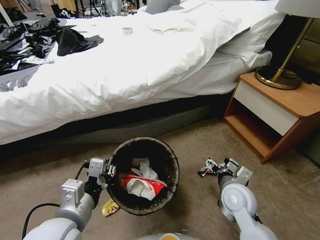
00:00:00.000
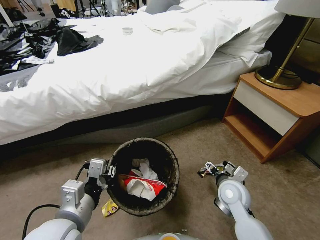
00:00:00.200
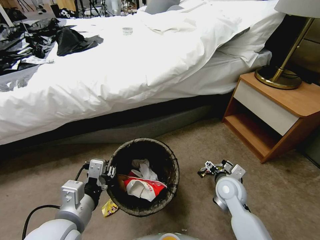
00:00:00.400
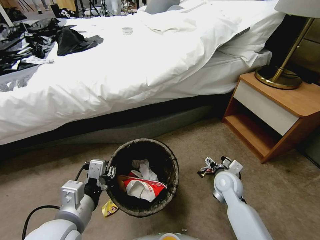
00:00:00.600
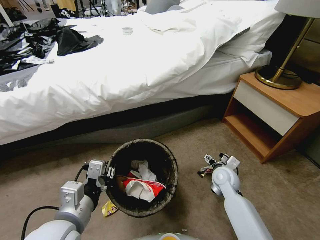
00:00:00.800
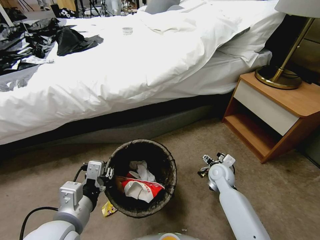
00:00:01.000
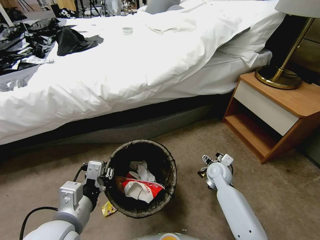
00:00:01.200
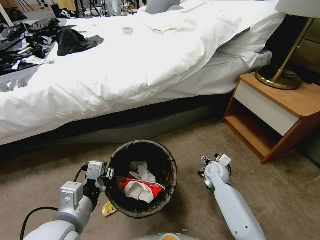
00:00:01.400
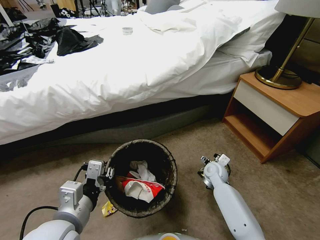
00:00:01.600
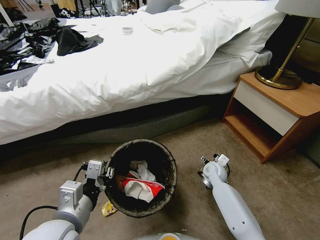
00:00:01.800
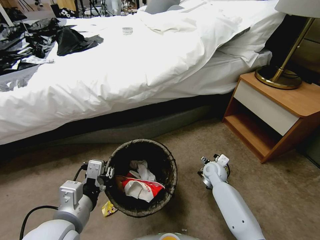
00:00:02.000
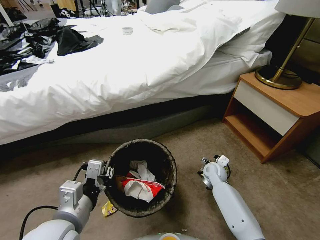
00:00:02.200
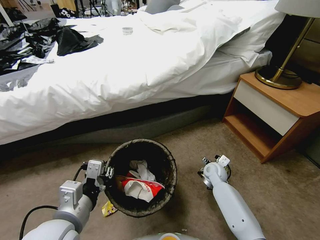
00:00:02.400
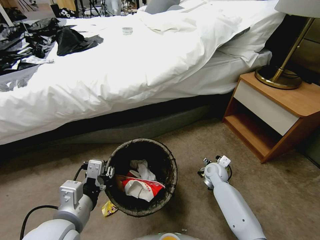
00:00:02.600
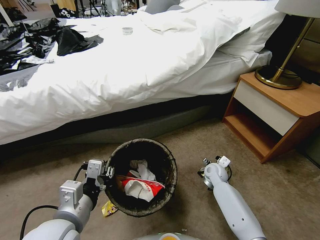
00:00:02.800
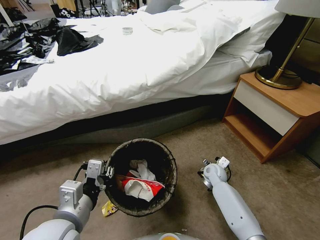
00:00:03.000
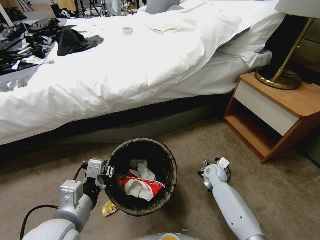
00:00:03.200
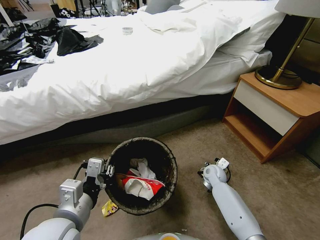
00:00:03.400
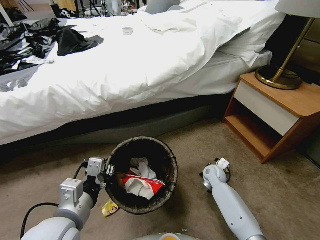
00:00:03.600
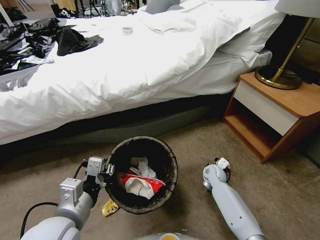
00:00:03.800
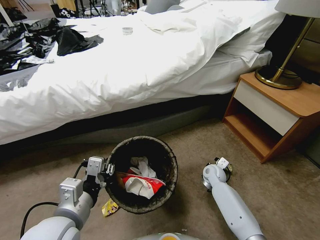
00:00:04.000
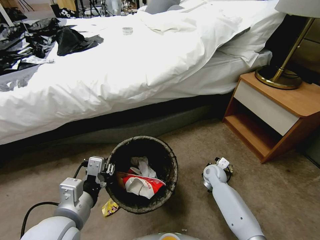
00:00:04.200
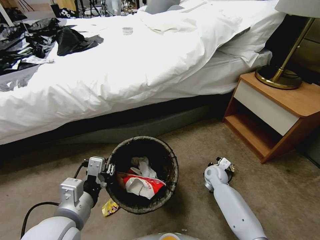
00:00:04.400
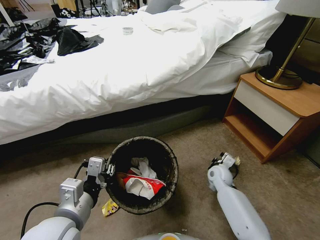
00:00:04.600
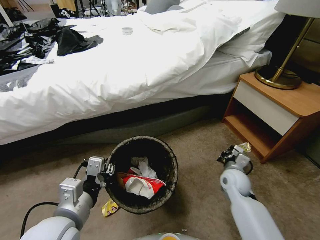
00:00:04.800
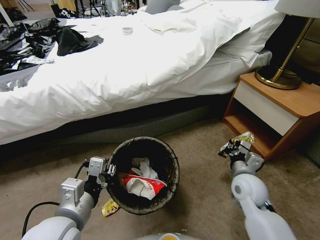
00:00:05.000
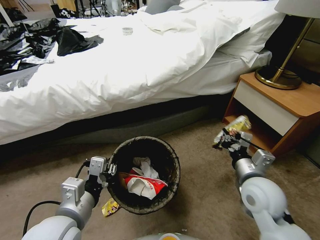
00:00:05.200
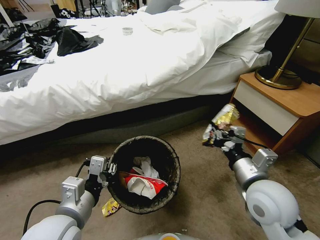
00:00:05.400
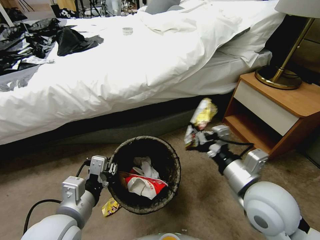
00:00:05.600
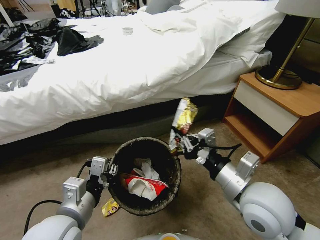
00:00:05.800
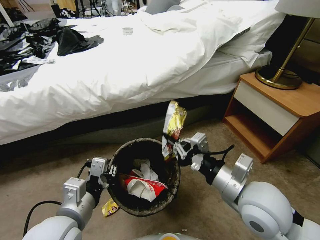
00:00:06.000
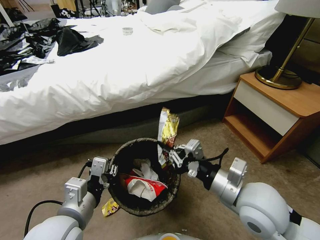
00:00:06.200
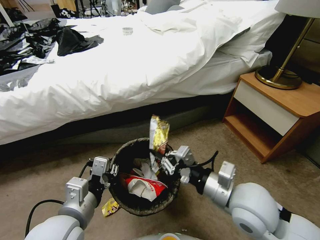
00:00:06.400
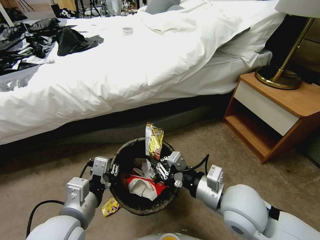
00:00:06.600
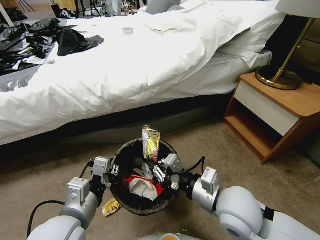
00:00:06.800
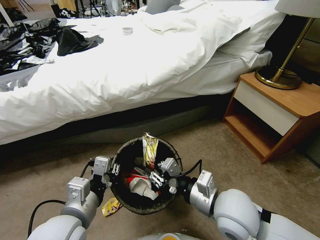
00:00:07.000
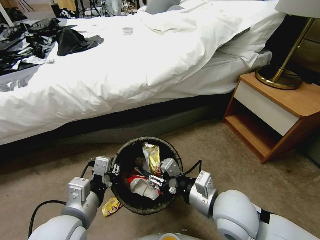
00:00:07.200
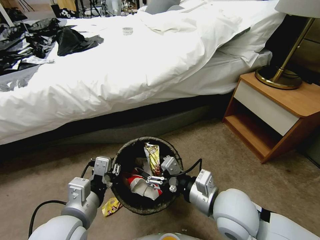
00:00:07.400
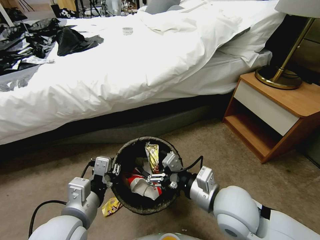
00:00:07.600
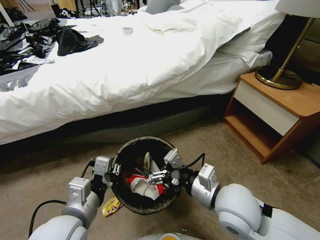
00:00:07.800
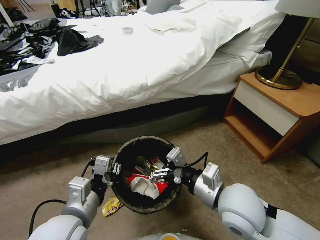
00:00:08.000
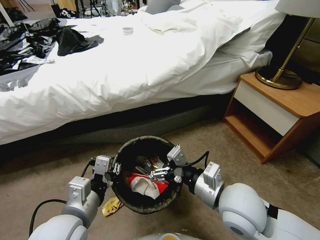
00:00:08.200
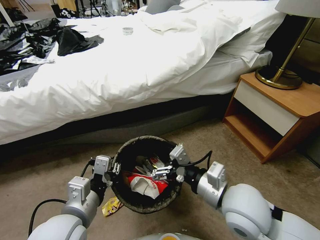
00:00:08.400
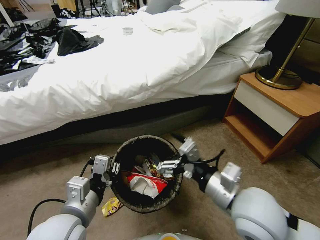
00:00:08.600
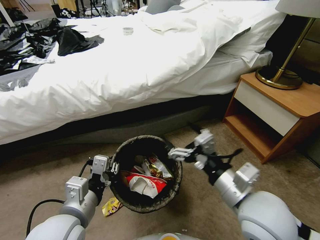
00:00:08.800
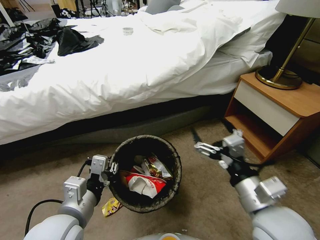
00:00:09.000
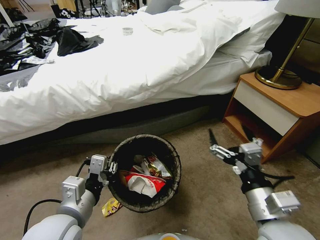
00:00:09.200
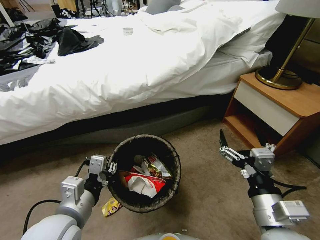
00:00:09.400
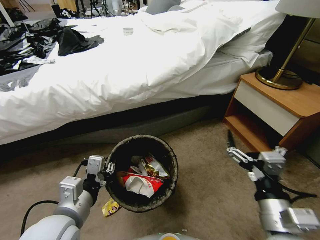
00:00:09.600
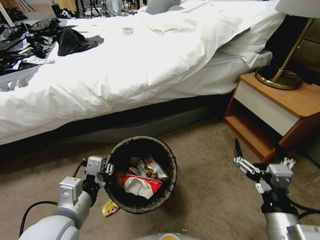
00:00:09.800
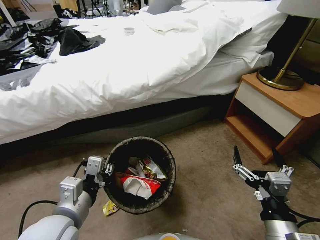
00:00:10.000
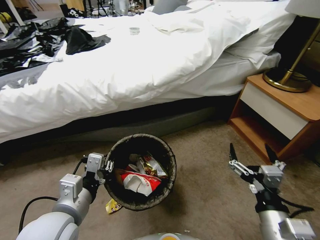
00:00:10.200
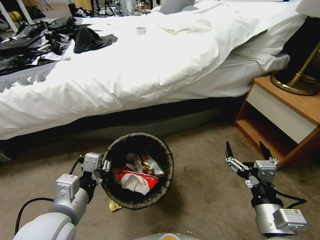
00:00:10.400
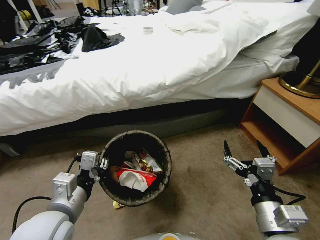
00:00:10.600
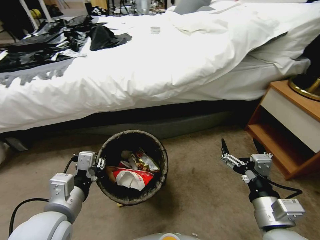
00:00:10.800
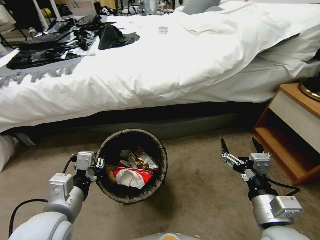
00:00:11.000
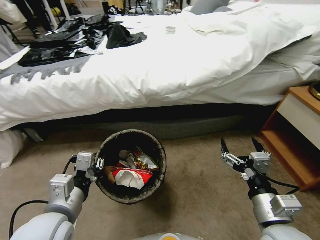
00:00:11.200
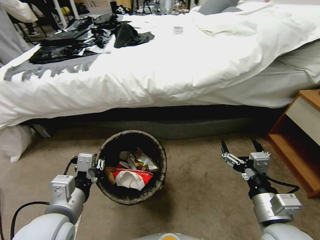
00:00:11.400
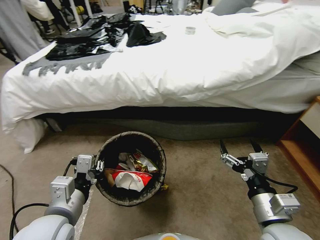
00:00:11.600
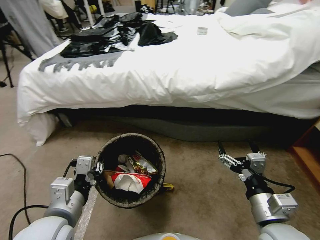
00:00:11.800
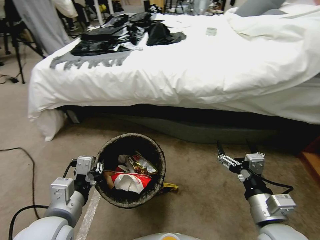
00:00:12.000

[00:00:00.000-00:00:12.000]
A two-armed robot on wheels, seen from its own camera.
Task of the whole recording: Pick up the trash bin, then pick up the garbage from the floor and place it into the trash bin.
00:00:00.000 to 00:00:01.600: The right gripper moves forward and downward, approximately 15 cm.
00:00:01.600 to 00:00:03.000: The grippers make only small movements.
00:00:03.000 to 00:00:04.400: The right gripper closes up.
00:00:04.400 to 00:00:06.000: The right gripper heads upward and backward, covering about 35 cm.
00:00:06.000 to 00:00:07.600: The right gripper changes place by some 5 cm, and opens.
00:00:07.600 to 00:00:09.000: The right gripper heads to the right, covering about 5 cm.
00:00:09.000 to 00:00:10.400: The right gripper shifts roughly 10 cm downward and backward.

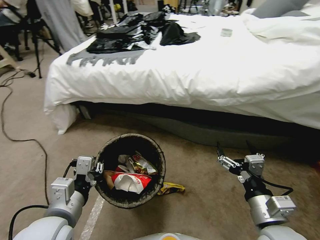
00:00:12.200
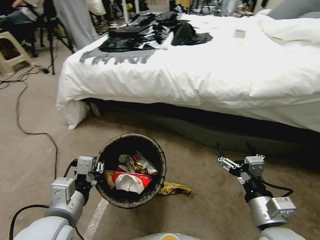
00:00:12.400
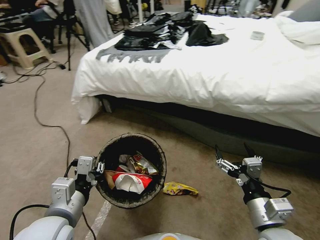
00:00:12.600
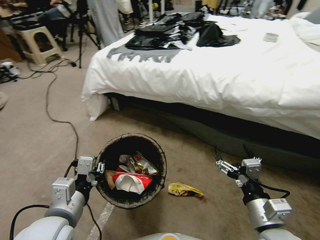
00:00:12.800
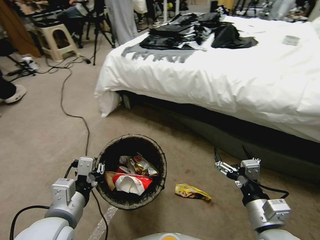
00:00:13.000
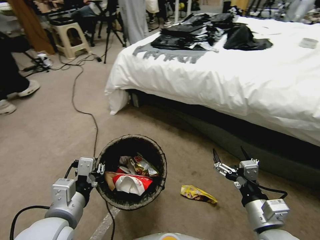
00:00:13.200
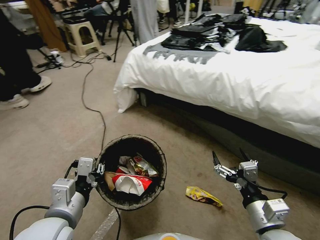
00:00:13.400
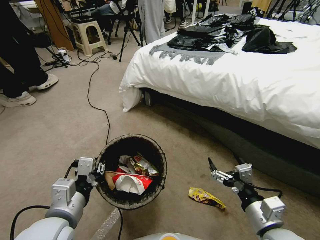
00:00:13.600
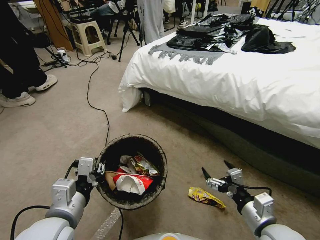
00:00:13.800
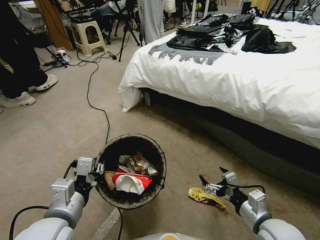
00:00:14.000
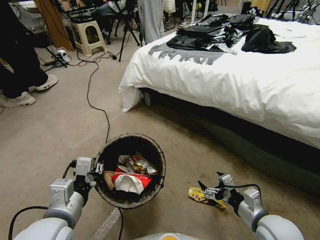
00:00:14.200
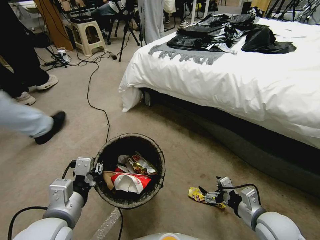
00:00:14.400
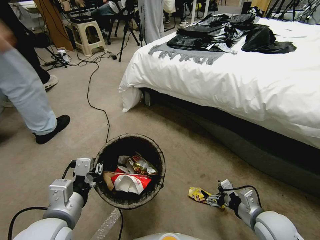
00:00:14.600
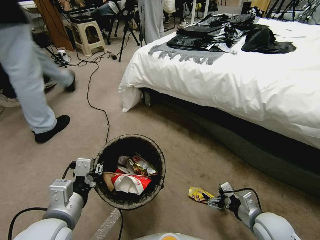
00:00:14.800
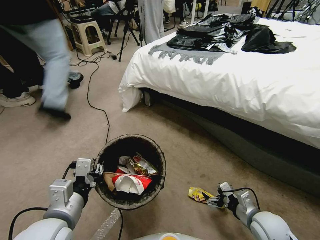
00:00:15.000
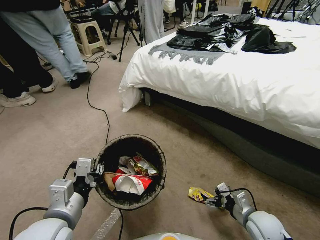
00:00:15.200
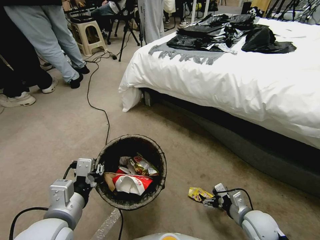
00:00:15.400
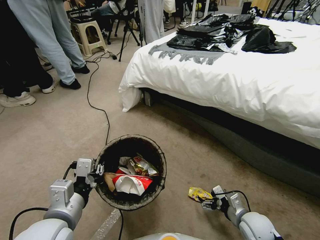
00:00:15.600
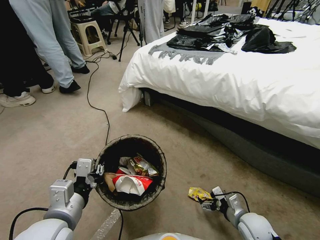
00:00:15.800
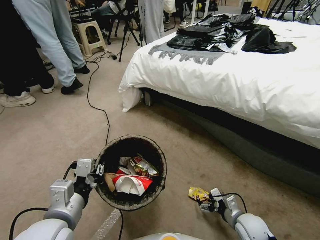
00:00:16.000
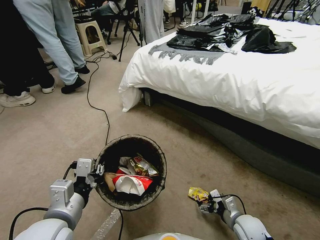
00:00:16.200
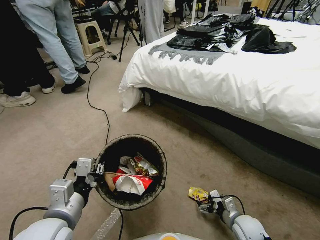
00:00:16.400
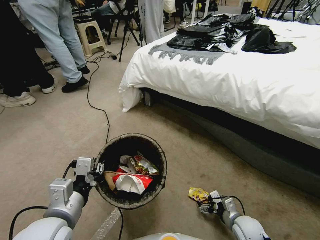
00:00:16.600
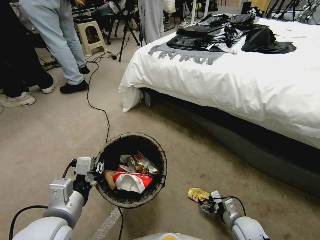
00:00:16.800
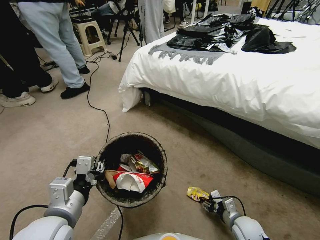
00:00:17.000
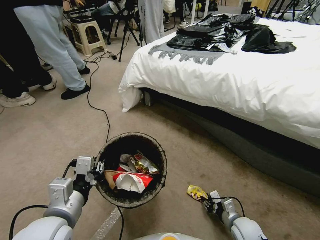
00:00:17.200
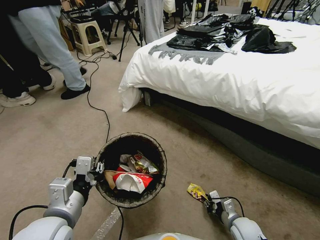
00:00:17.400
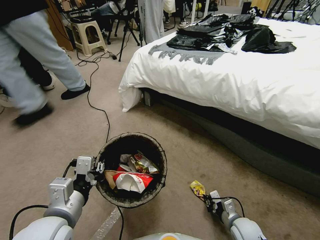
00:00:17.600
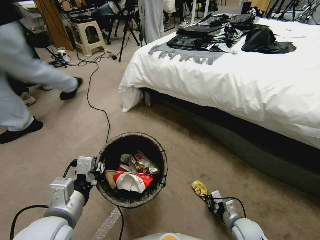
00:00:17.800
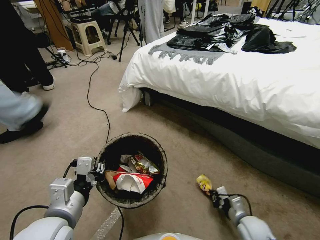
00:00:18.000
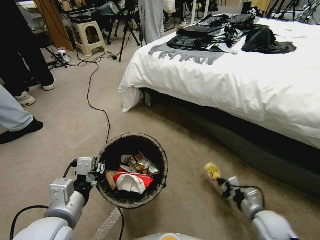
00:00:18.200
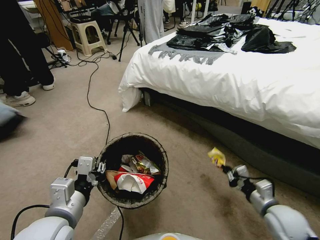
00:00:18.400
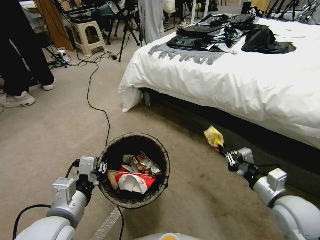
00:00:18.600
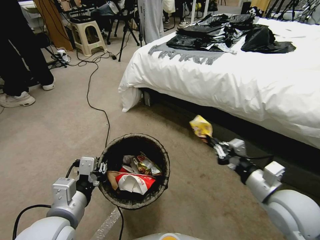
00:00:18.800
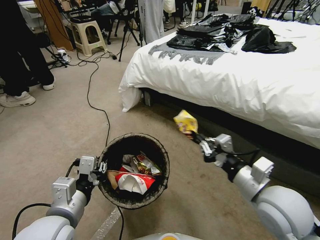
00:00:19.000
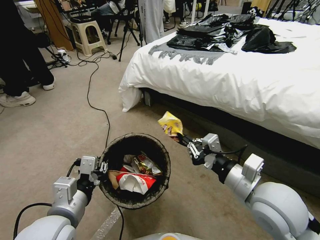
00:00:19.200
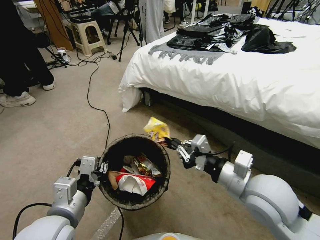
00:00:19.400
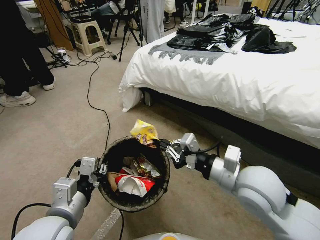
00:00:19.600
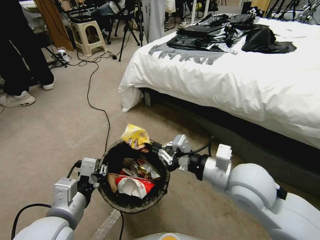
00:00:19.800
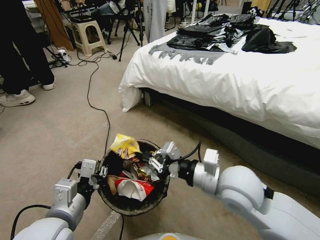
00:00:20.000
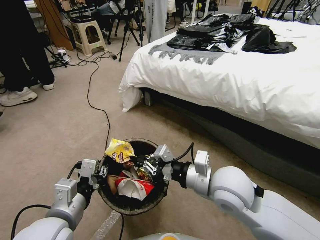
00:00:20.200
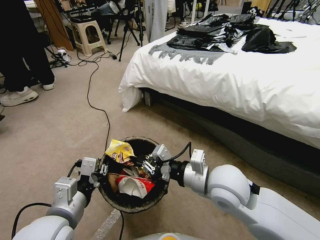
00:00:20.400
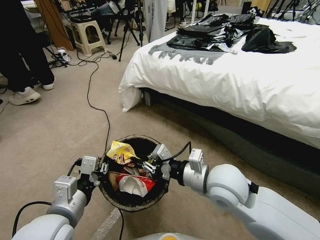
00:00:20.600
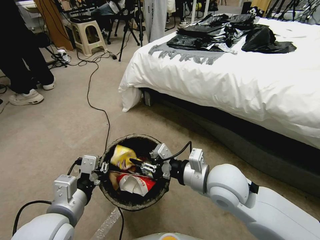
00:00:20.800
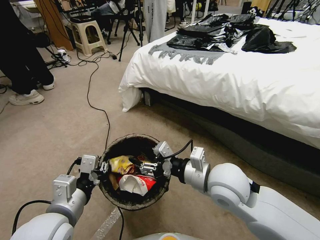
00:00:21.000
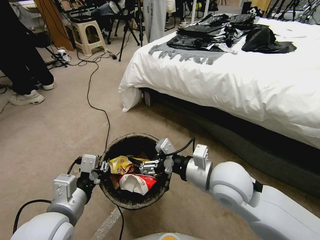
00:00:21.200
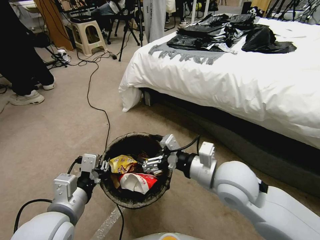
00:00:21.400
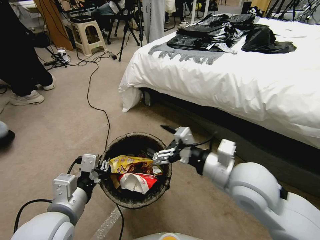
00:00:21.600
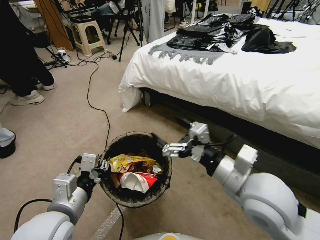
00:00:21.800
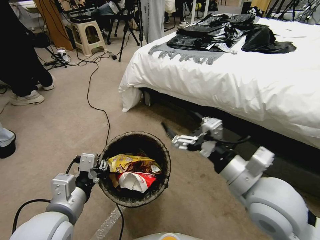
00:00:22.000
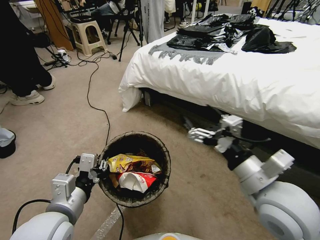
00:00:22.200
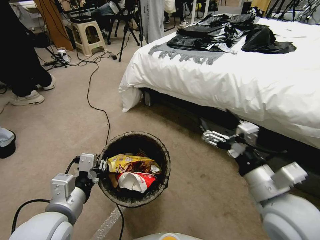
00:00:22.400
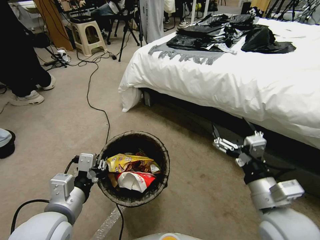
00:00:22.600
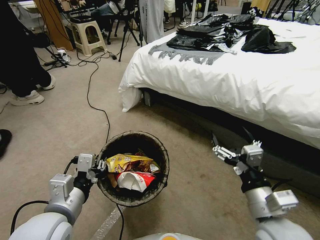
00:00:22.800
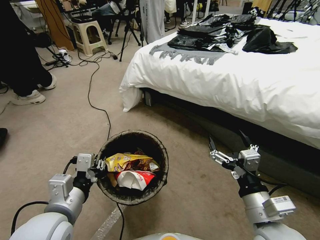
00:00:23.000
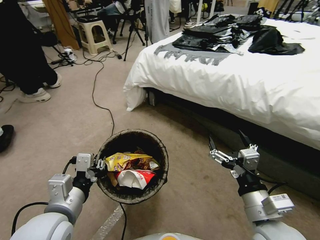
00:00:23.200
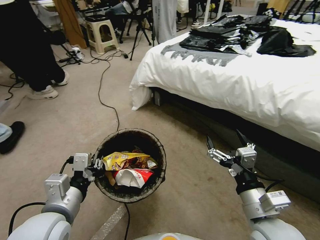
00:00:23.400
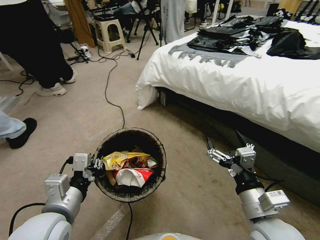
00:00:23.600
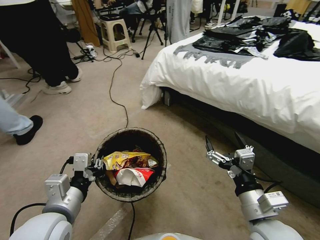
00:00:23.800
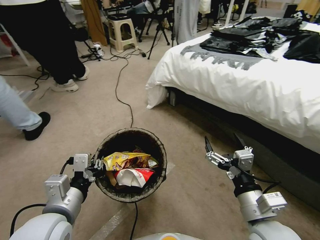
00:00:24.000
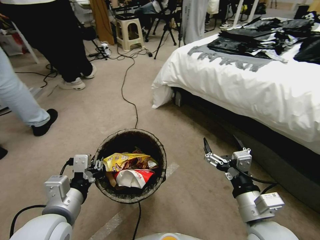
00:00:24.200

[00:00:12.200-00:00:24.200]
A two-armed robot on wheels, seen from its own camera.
Task of the whole recording: Pick up the trash bin, then pick up the garbage from the floor and place it into the trash bin.
00:00:13.800 to 00:00:15.200: The right gripper shifts approximately 15 cm downward and forward.
00:00:15.200 to 00:00:16.600: The right gripper travels downward by roughly 10 cm.
00:00:16.600 to 00:00:18.200: The right gripper travels upward by roughly 5 cm, and closes.
00:00:18.200 to 00:00:19.800: The right gripper moves upward and to the left, roughly 30 cm.
00:00:19.800 to 00:00:21.200: The right gripper heads to the left, covering about 5 cm, and opens its fingers.
00:00:21.200 to 00:00:22.600: The right gripper heads to the right and backward, covering about 15 cm.
00:00:22.600 to 00:00:24.200: The right gripper moves roughly 5 cm.
